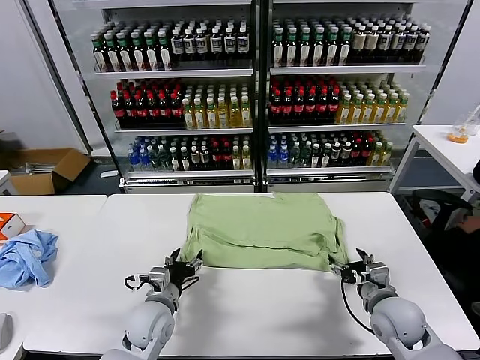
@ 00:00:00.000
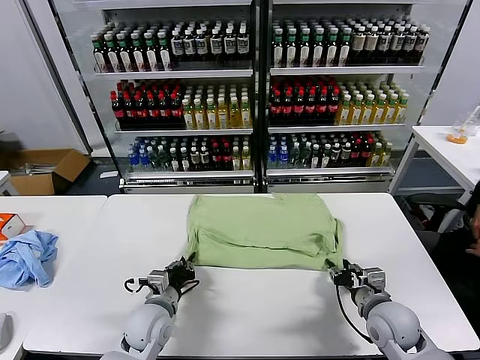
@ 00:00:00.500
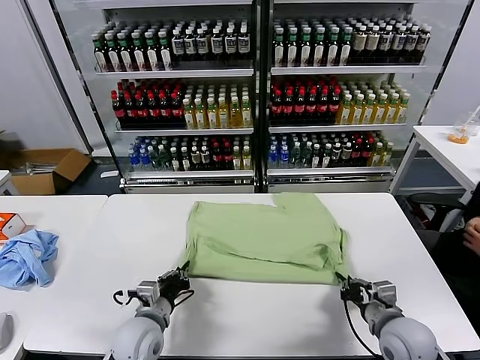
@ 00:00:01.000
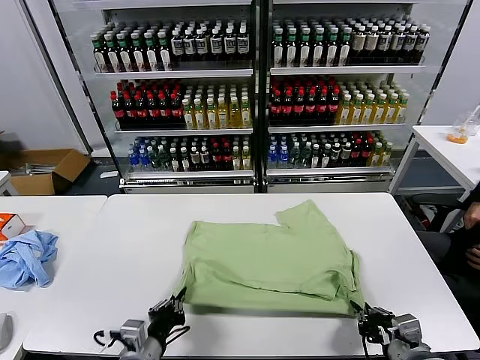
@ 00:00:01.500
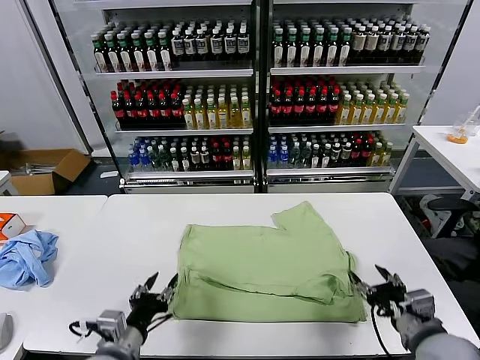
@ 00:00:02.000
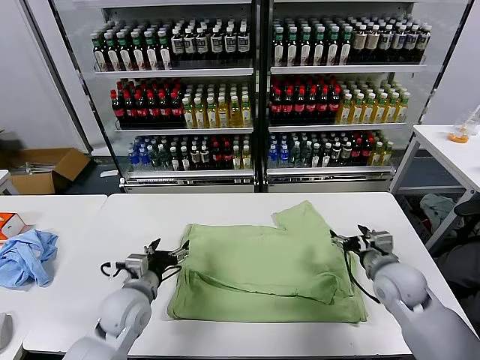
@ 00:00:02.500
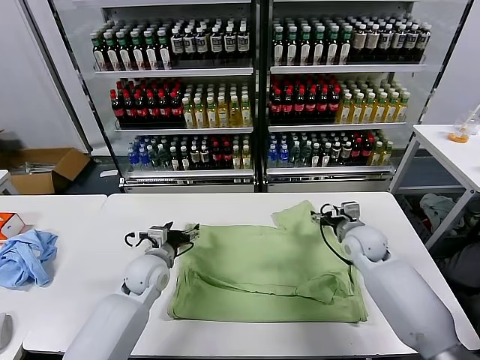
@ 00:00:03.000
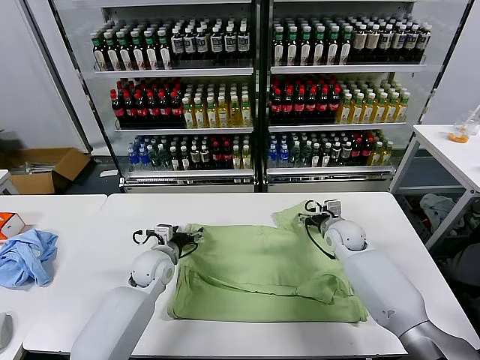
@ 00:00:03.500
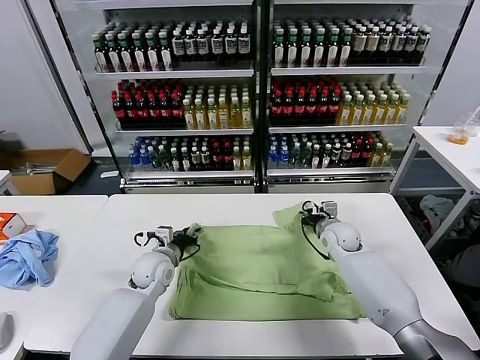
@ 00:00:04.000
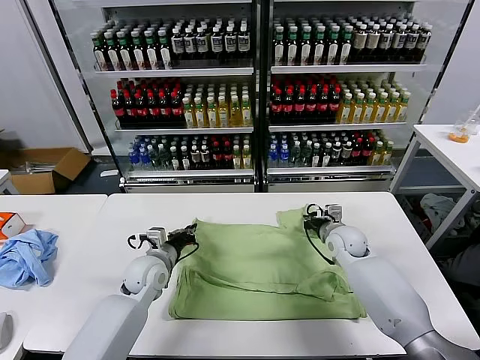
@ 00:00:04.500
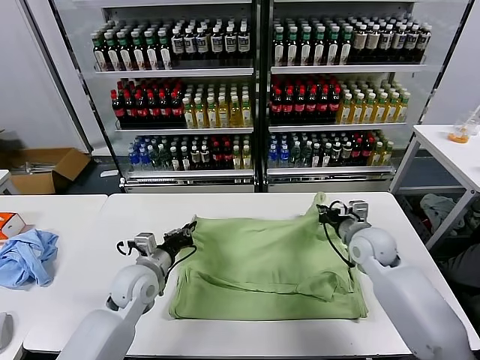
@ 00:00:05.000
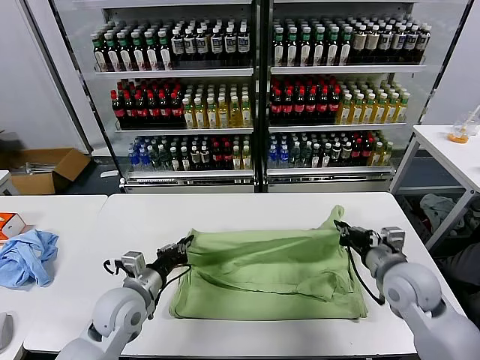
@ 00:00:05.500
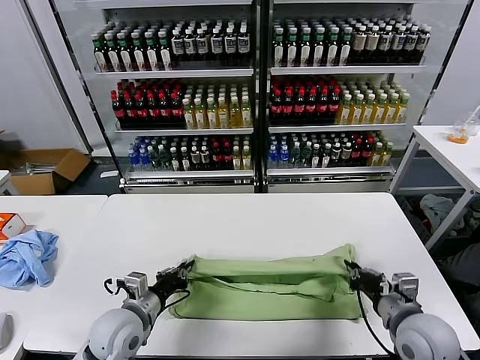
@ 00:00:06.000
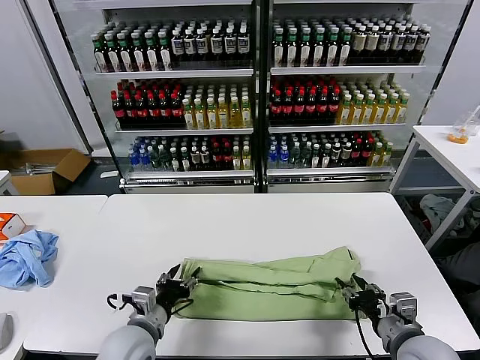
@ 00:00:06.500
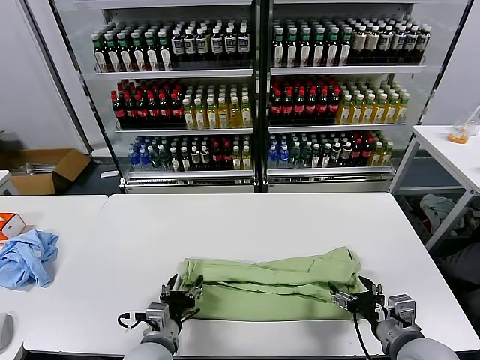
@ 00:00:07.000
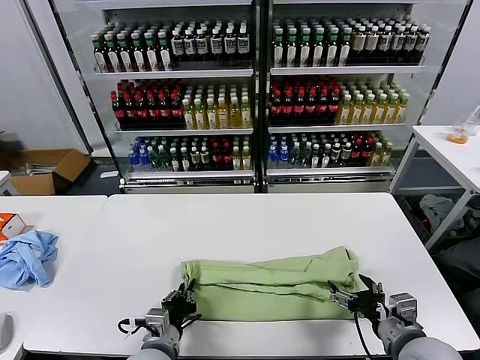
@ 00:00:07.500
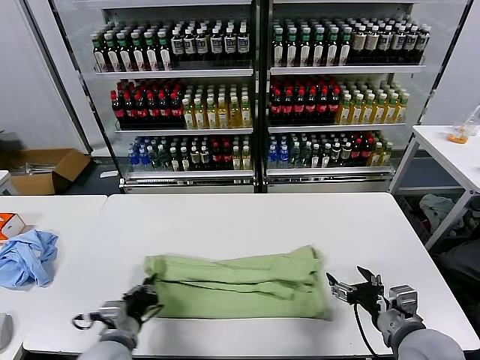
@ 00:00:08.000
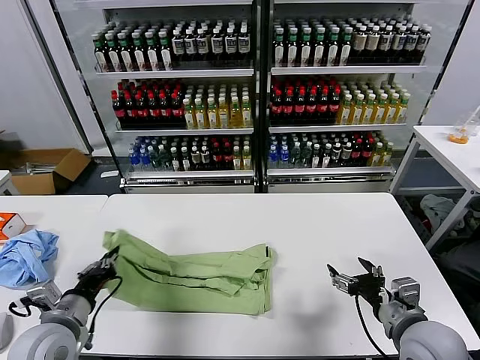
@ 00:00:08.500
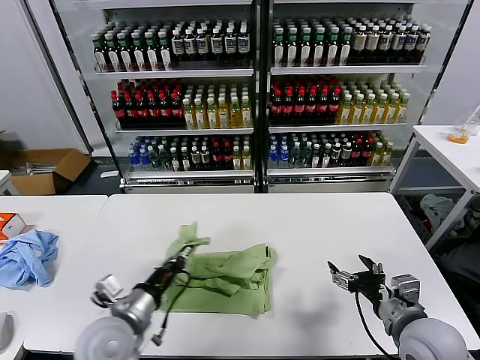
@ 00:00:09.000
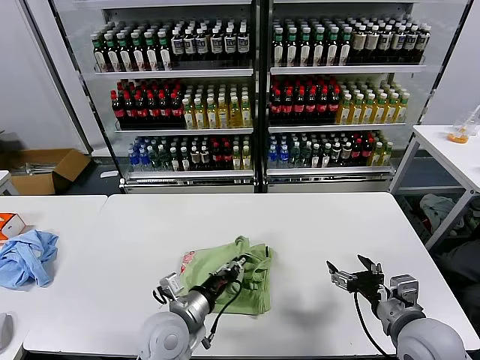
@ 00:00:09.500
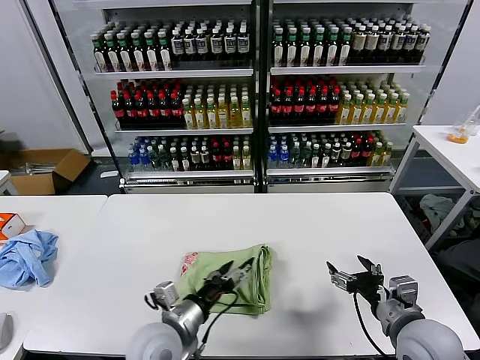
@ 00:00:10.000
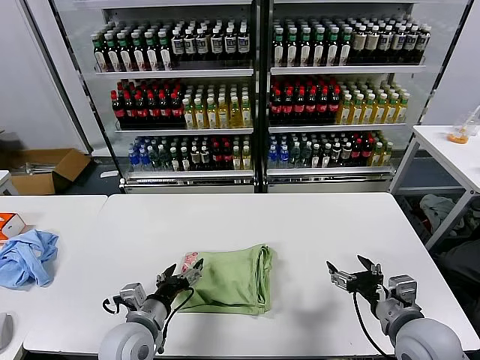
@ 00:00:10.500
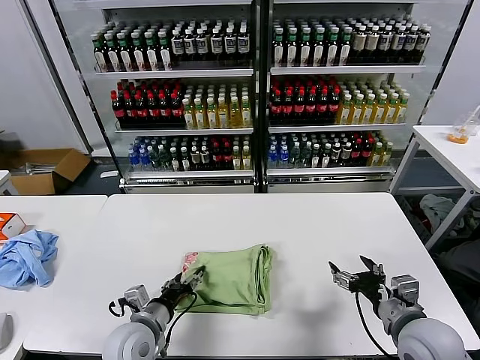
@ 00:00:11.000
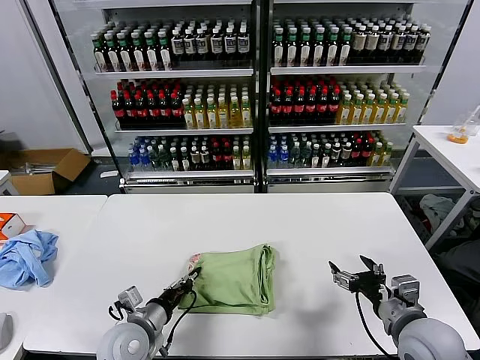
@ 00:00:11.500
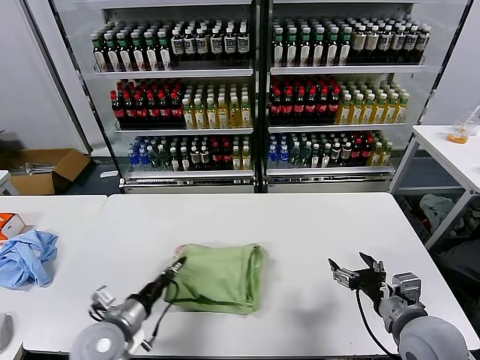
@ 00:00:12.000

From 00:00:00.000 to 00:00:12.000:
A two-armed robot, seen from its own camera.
Task of the whole recording: fold and organize the clothes.
Step, from 00:00:00.000 to 00:00:01.500: Drag the clothes downward with both gripper.
Step, from 00:00:02.000 to 00:00:04.000: use both grippers simultaneously to clamp the upper edge of the clothing fabric.
Step, from 00:00:04.500 to 00:00:06.500: use both grippers to drag the upper edge of the fabric backward and fold it over the lower edge.
Step, from 00:00:07.000 to 00:00:07.500: use the left gripper to clamp the left edge of the fabric.
Step, from 00:00:08.000 to 00:00:09.500: use the left gripper to drag the left edge of the fabric to the left and folds it over the right edge.
From 00:00:00.000 to 00:00:02.000: The left gripper is displaced backward and upward by approximately 15 cm, and closes and opens again. The right gripper travels upward and backward by roughly 10 cm, and closes and opens again.
From 00:00:02.000 to 00:00:04.000: Both grippers travel together forward, roughly 25 cm. The right gripper closes up, while the left gripper opens, then closes again.
From 00:00:04.000 to 00:00:06.000: The right gripper travels backward by approximately 30 cm. Meanwhile the left gripper moves backward, some 15 cm, and closes up.
From 00:00:06.000 to 00:00:08.000: The left gripper is displaced backward by about 5 cm, and opens and closes again. The right gripper opens.
From 00:00:08.000 to 00:00:10.000: The left gripper heads to the right, covering approximately 10 cm, and opens up.
From 00:00:10.000 to 00:00:12.000: The left gripper heads to the left, covering approximately 10 cm, and closes.

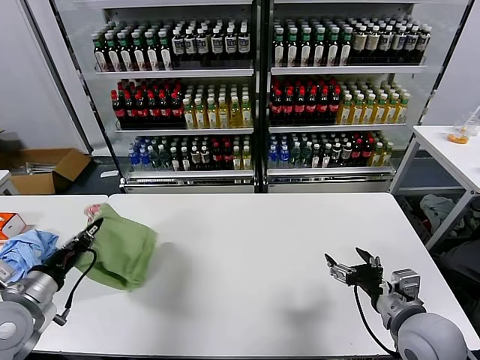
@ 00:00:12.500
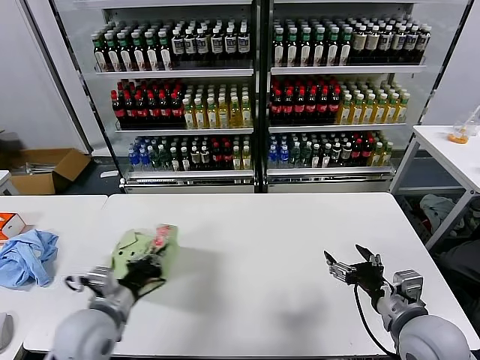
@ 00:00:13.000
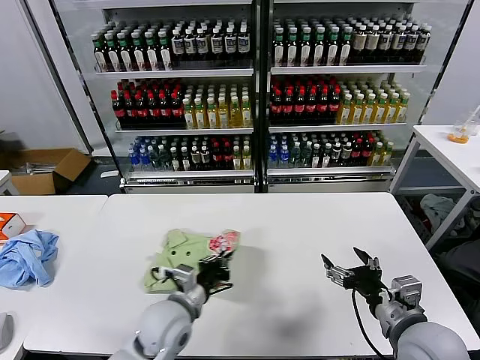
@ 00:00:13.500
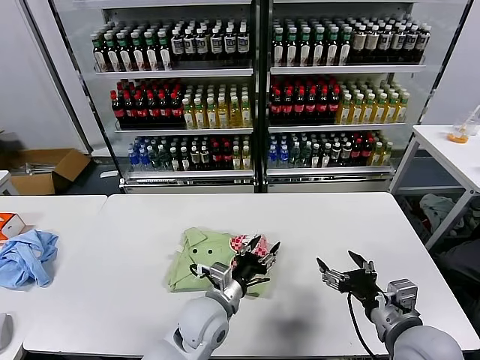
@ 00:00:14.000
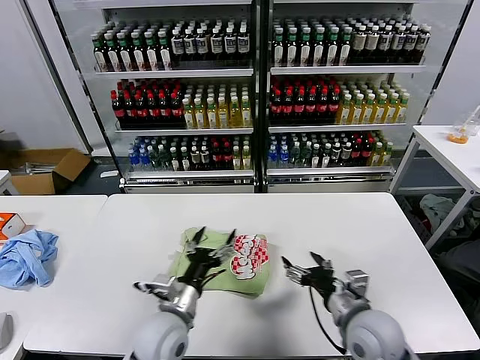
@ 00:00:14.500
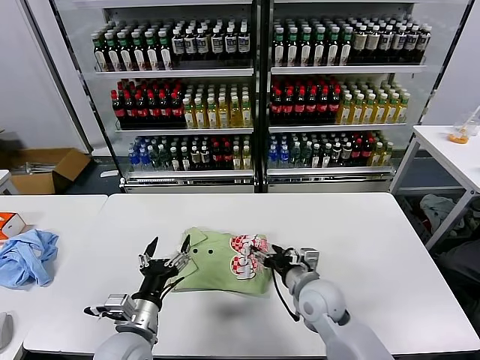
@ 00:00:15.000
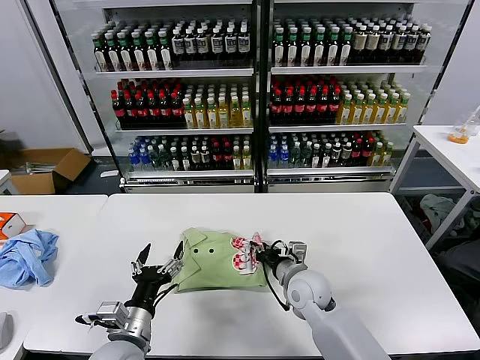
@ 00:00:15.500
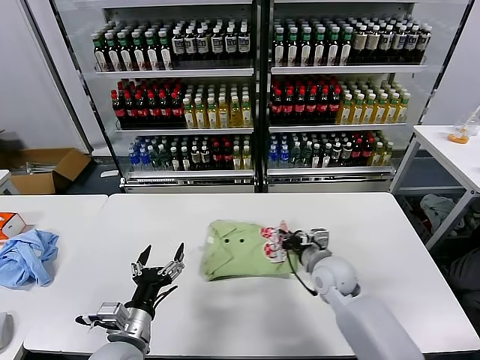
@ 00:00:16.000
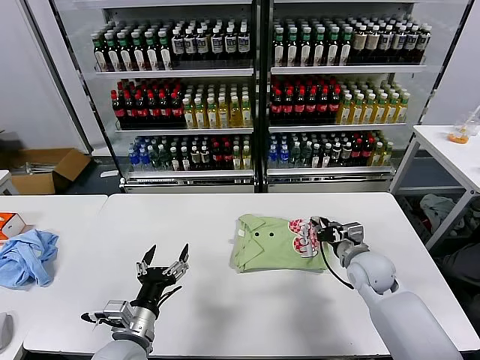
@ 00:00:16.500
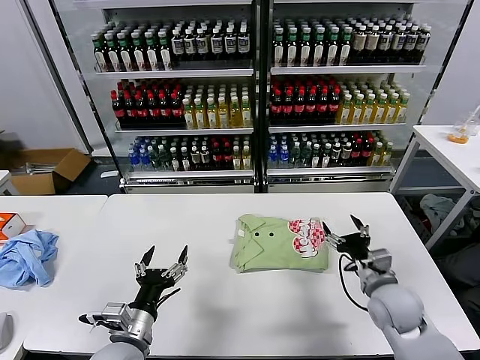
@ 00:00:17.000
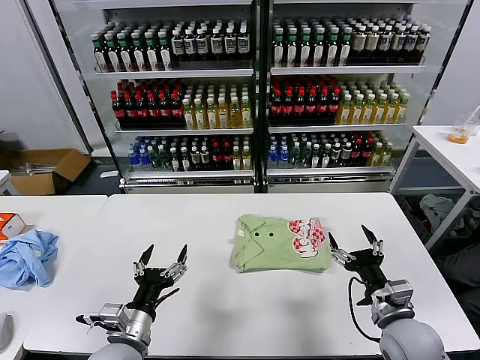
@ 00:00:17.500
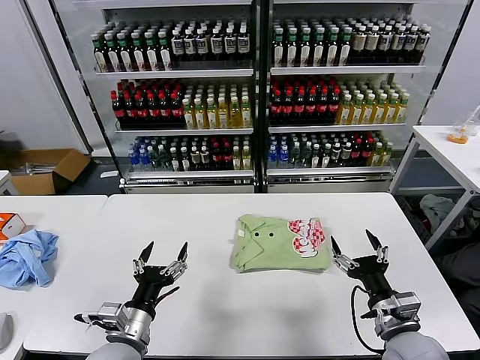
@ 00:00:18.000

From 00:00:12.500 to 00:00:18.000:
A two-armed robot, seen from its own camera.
Task of the whole recording: fold and organize the clothes.
Step, from 00:00:14.500 to 00:00:16.500: Drag the clothes to the center of the table.
From 00:00:12.500 to 00:00:14.500: The left gripper goes roughly 25 cm to the right, and opens. The right gripper shifts about 5 cm to the left.
From 00:00:14.500 to 00:00:16.000: The left gripper travels to the left and backward by some 10 cm. The right gripper moves forward, some 15 cm, and closes its fingers.
From 00:00:16.000 to 00:00:18.000: The right gripper is displaced backward and to the right by about 20 cm, and opens up.
